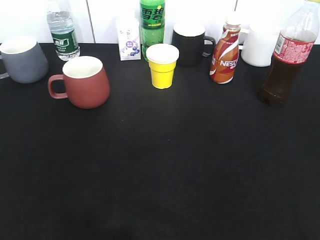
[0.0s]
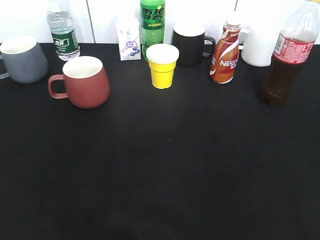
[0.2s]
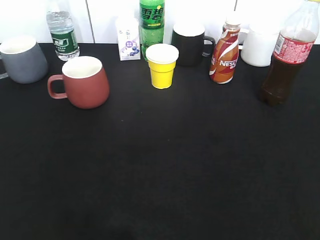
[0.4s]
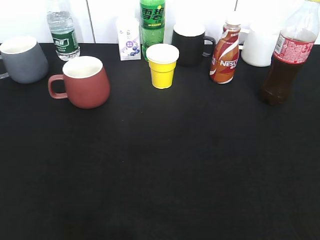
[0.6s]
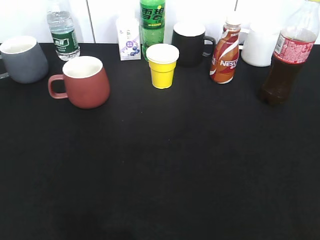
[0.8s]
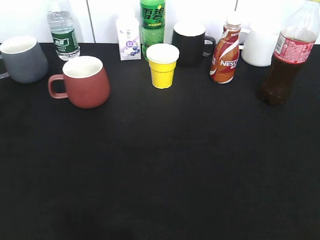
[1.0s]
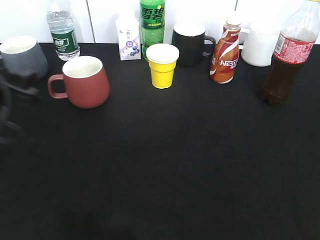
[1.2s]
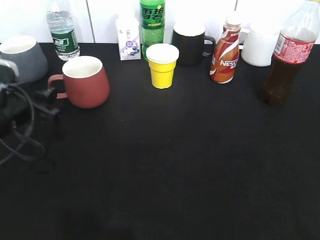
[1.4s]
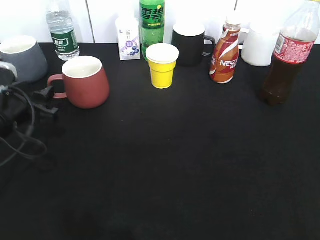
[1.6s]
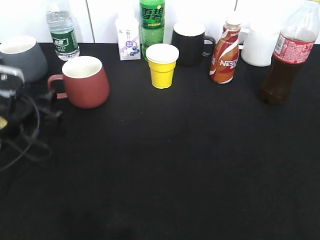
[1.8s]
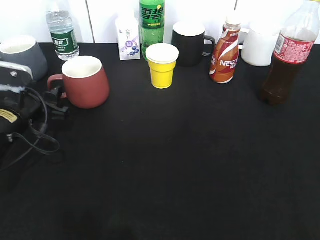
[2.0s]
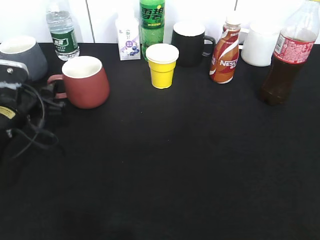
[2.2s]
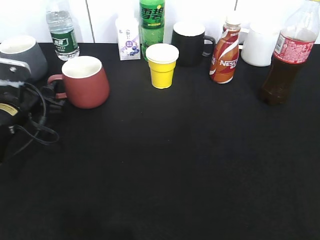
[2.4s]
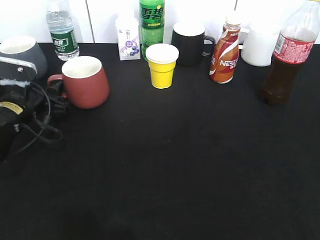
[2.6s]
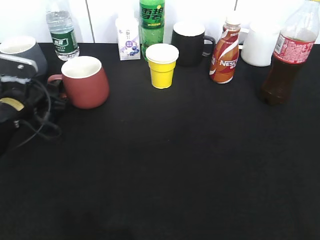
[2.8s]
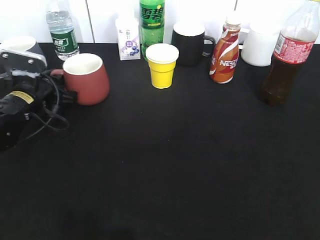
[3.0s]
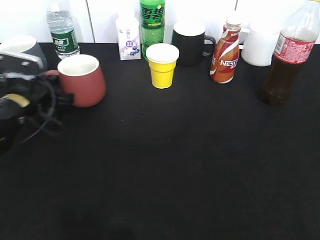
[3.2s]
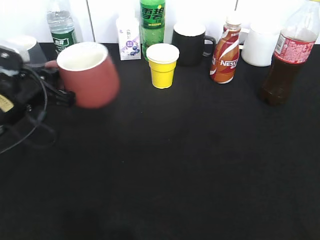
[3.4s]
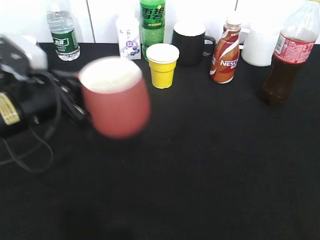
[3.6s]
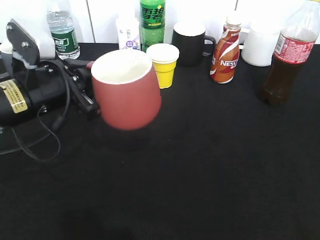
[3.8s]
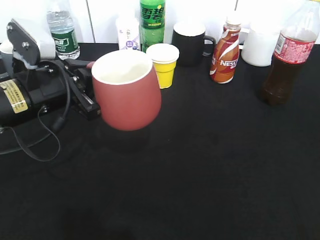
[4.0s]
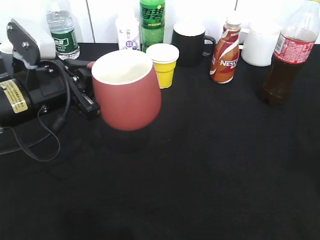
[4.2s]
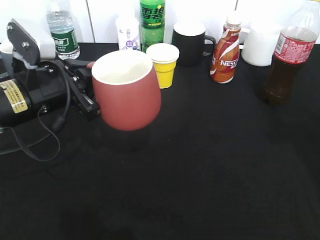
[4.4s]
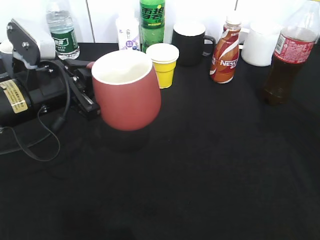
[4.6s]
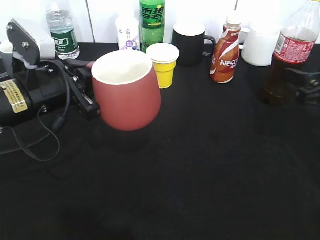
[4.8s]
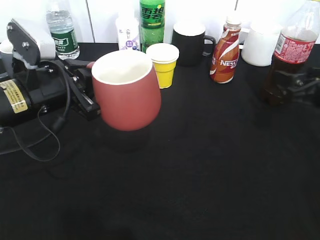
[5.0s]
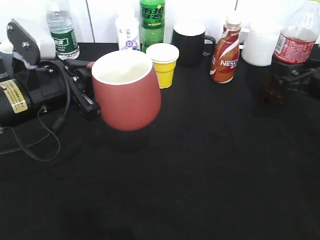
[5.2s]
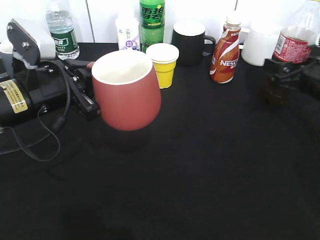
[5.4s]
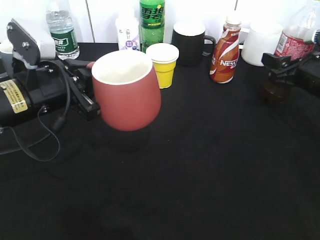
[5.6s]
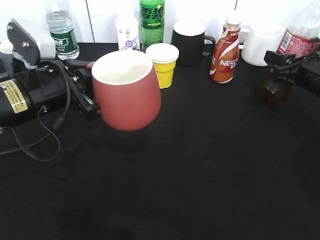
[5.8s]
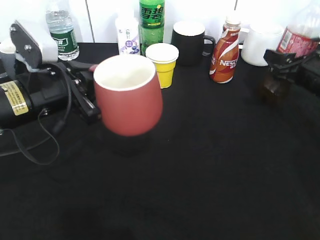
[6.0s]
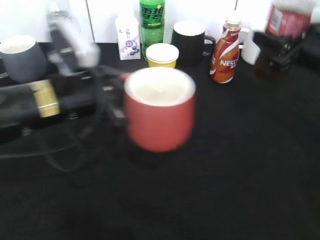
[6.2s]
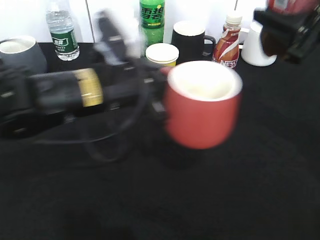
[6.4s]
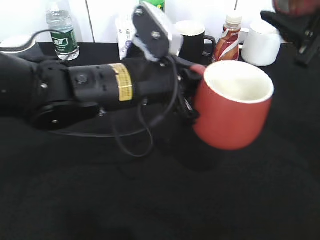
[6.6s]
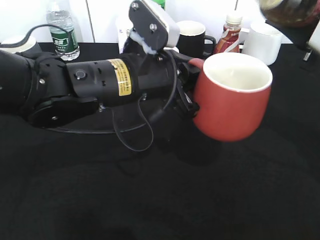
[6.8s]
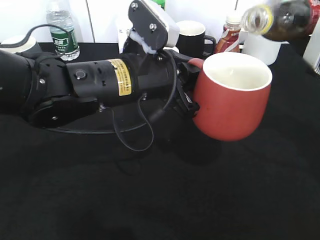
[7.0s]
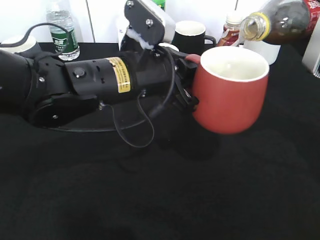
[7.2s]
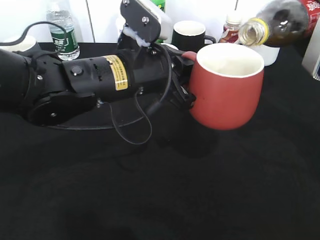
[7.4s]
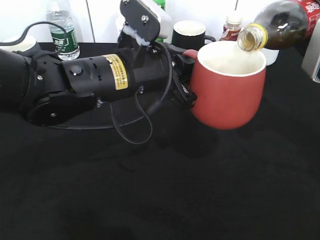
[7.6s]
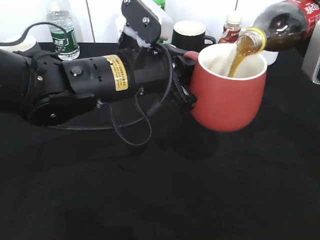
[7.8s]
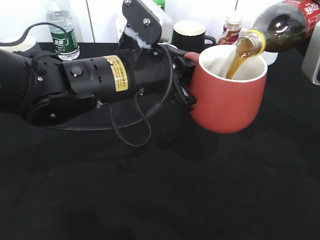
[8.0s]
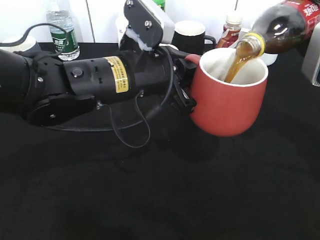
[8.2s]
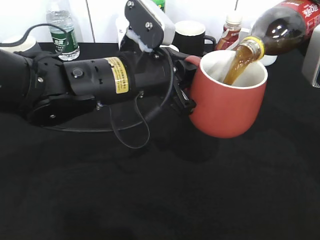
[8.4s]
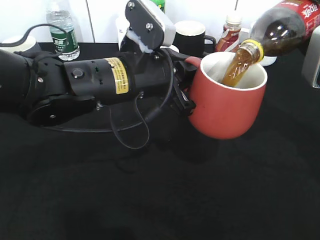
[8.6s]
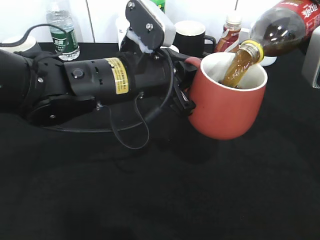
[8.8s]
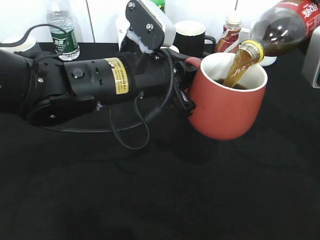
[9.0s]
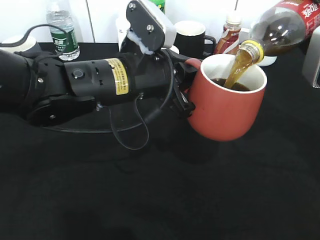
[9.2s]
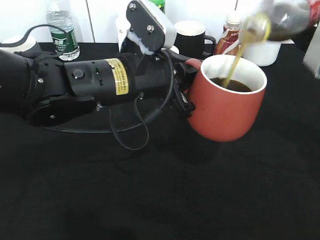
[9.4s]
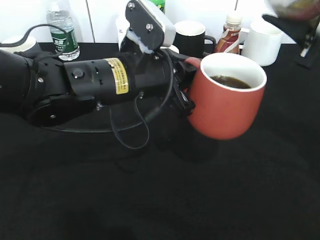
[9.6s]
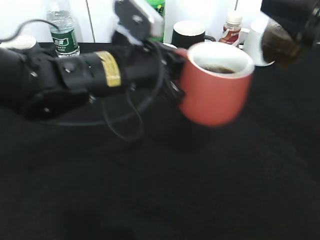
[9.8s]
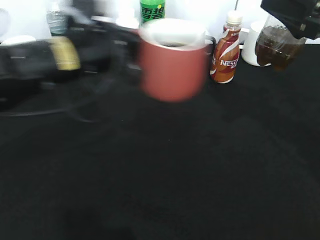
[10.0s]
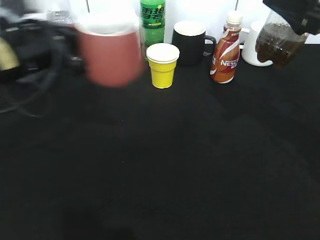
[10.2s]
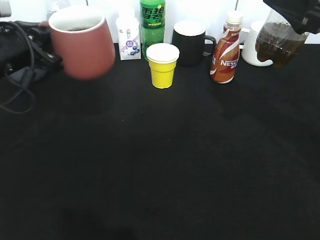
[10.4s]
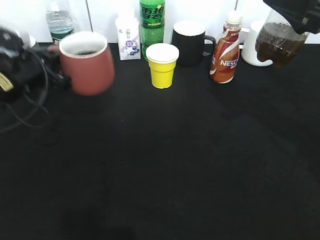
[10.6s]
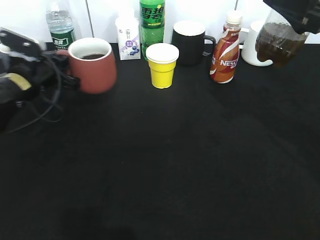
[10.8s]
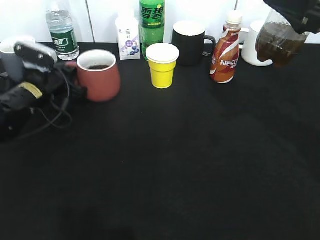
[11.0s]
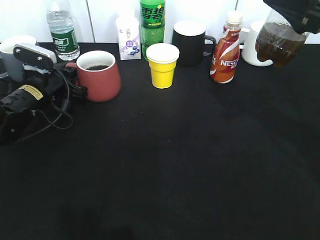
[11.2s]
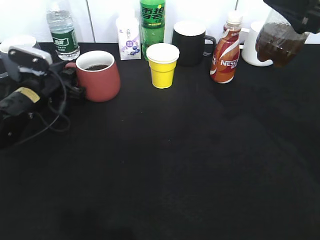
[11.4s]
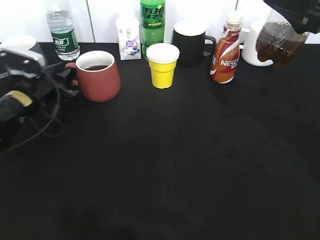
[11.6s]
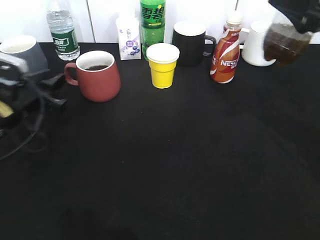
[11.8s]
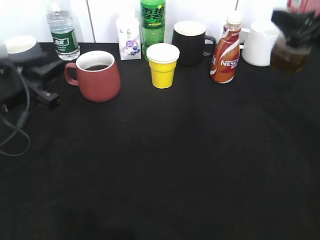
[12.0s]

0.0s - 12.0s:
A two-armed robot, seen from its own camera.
Step, 0.0s - 3.0s: Grasp the red cup with left gripper.
Step, 3.4s - 4.0s: Lift the red cup with left gripper.
Step, 4.4s - 5.6s: Grasp the bottle with cola with right gripper.
Step, 5.8s - 9.4s: Pour the cola from bottle to cup with right gripper.
Step, 9.8s - 11.8s: Place the red cup on the table with left gripper.
0.0s - 1.6s: The left gripper travels forward and downward by roughly 30 cm, and opens its fingers.
1.6s - 3.0s: The left gripper shifts approximately 10 cm forward, and closes up.
3.0s - 4.4s: The right gripper moves forward, roughly 20 cm. Meanwhile the left gripper goes approximately 15 cm backward, upward and to the right.
4.4s - 6.0s: The right gripper moves forward and downward, about 20 cm, and closes its fingers.
6.0s - 7.6s: The right gripper heads upward and backward, covering approximately 15 cm; the left gripper is displaced to the right by roughly 15 cm.
7.6s - 9.0s: The grippers make only small movements.
9.0s - 10.4s: The left gripper travels to the left by about 20 cm.
10.4s - 12.0s: The right gripper shifts by some 5 cm, while the left gripper opens its fingers.

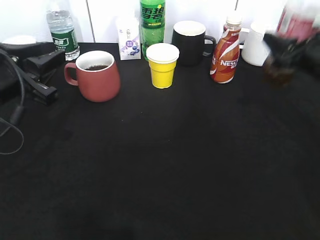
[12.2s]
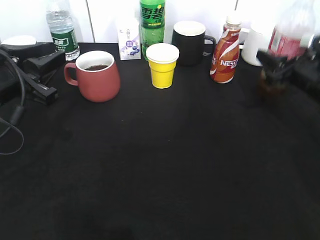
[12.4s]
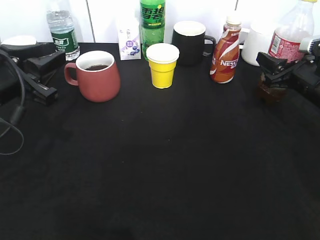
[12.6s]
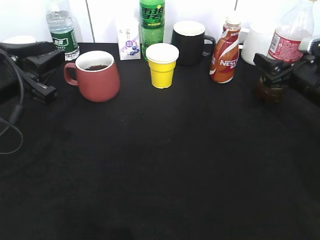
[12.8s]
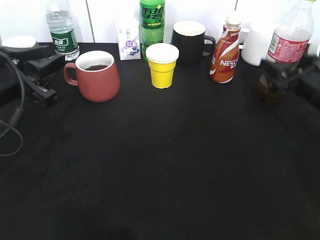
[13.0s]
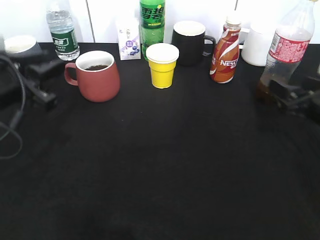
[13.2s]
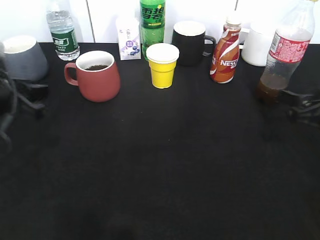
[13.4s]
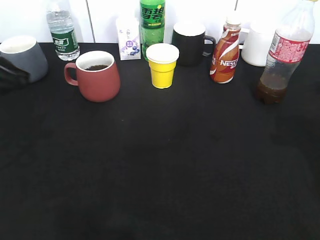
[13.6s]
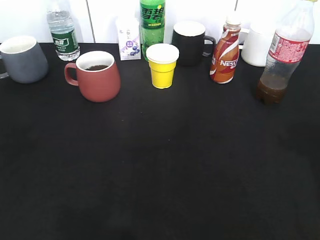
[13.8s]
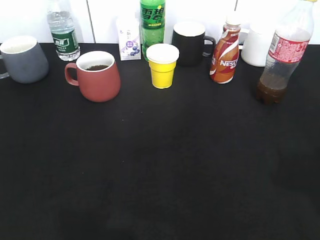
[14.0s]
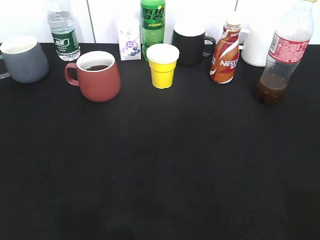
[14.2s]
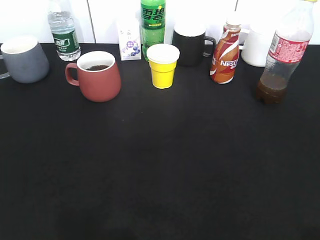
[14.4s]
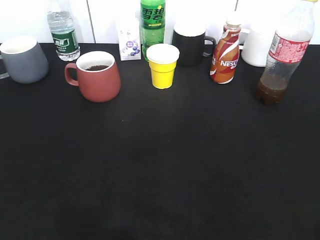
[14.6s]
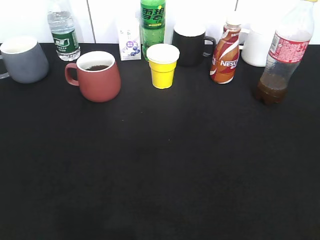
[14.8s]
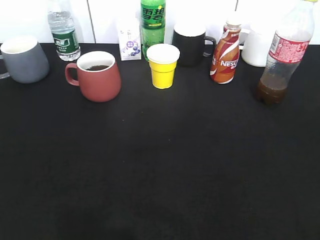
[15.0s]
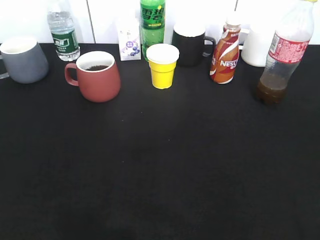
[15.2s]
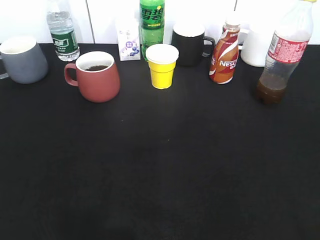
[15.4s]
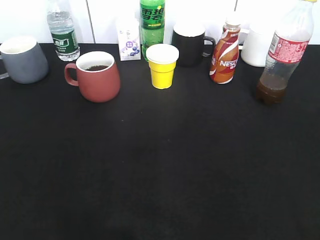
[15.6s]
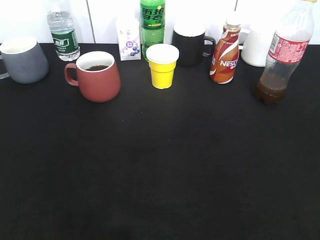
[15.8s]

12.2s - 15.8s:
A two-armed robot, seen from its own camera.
Step, 12.2s - 13.4s: Place the cola bottle on the table with right gripper.
12.2s - 14.0s: Both grippers move backward and upward, about 25 cm. The right gripper opens up.
